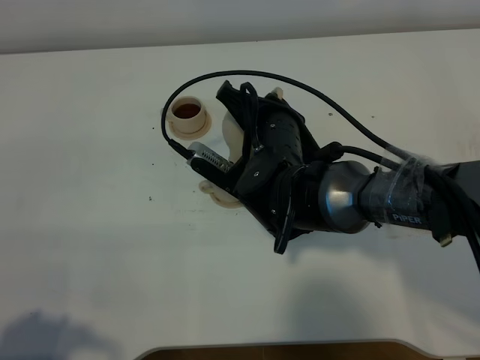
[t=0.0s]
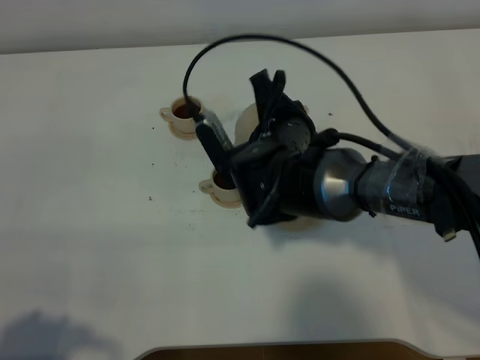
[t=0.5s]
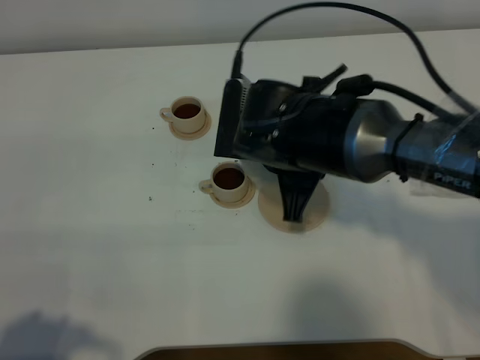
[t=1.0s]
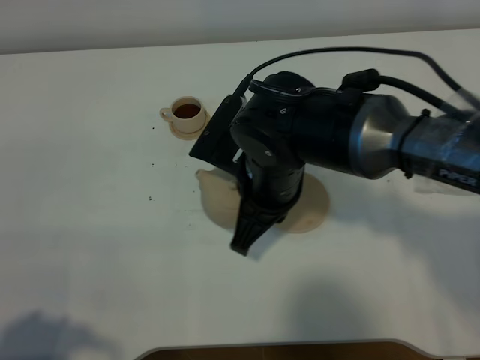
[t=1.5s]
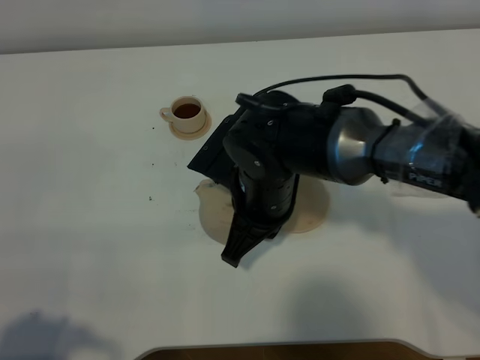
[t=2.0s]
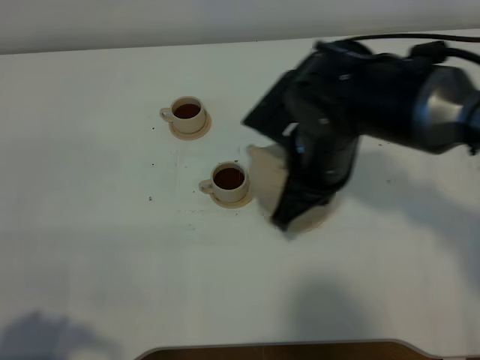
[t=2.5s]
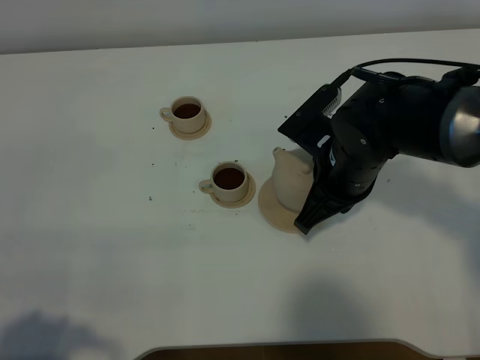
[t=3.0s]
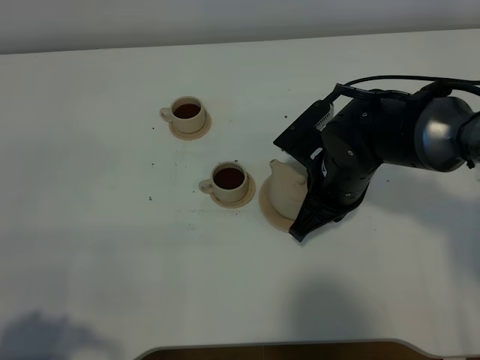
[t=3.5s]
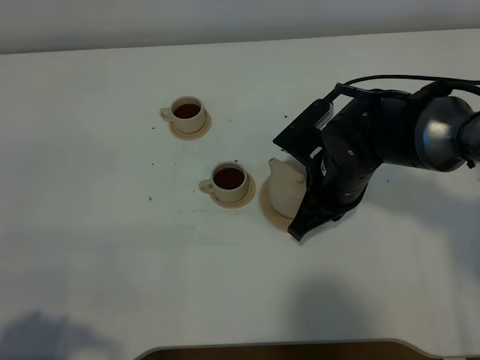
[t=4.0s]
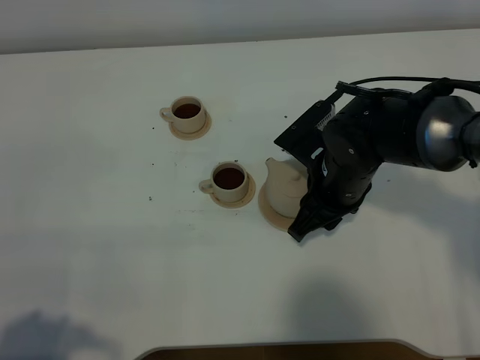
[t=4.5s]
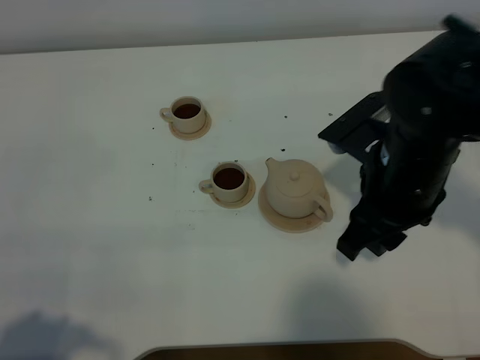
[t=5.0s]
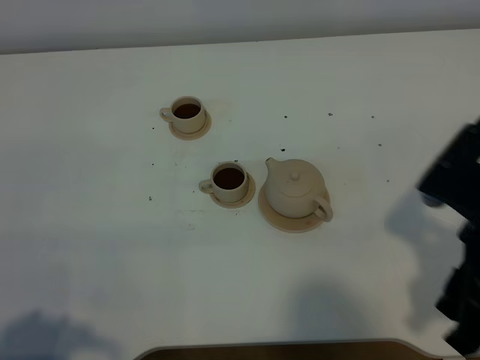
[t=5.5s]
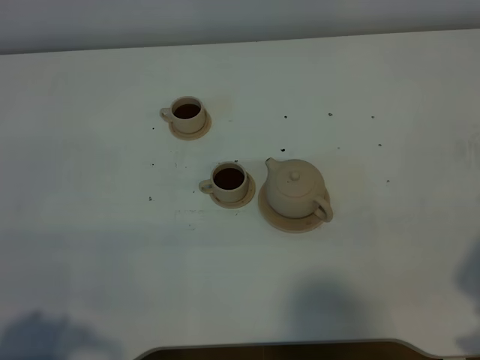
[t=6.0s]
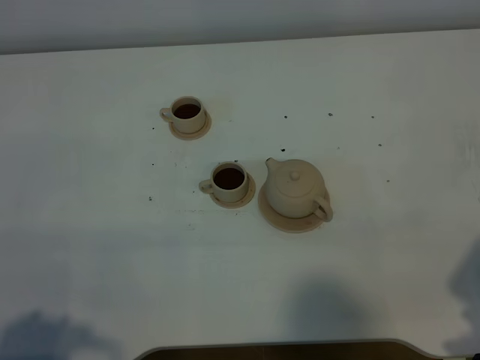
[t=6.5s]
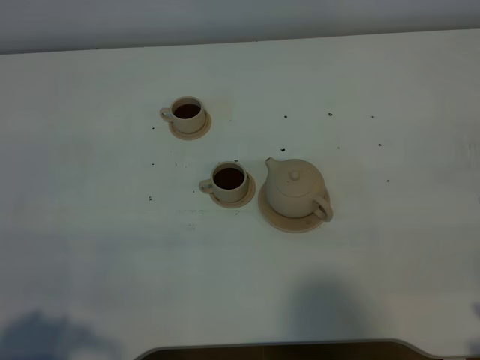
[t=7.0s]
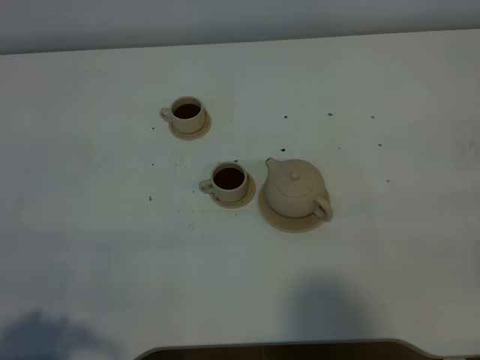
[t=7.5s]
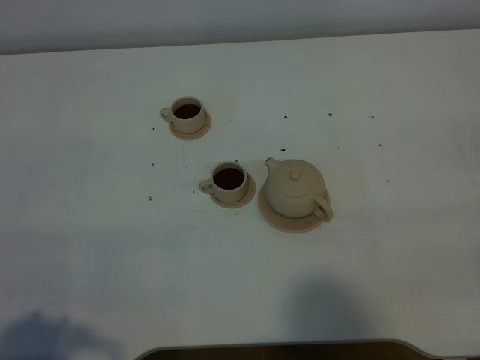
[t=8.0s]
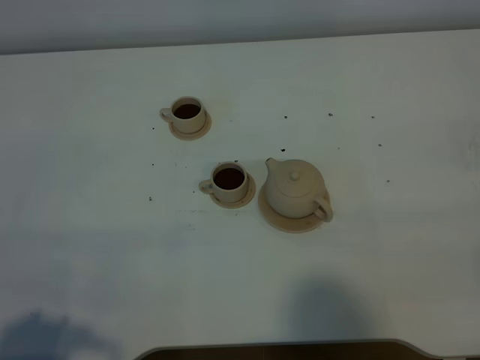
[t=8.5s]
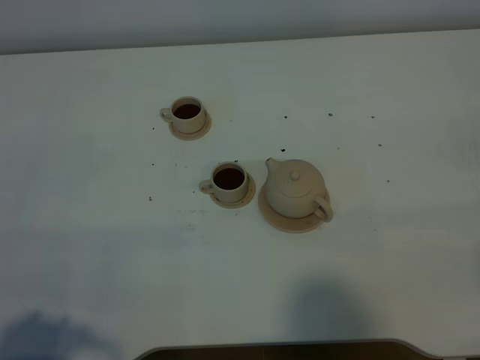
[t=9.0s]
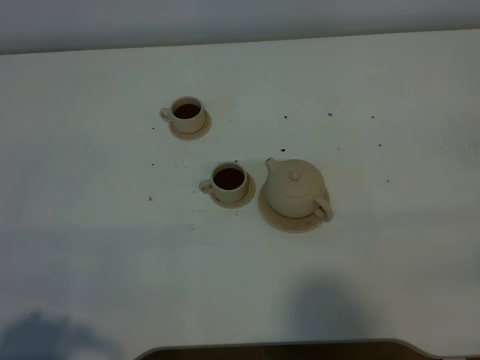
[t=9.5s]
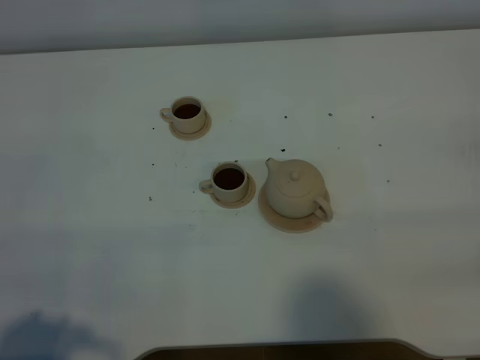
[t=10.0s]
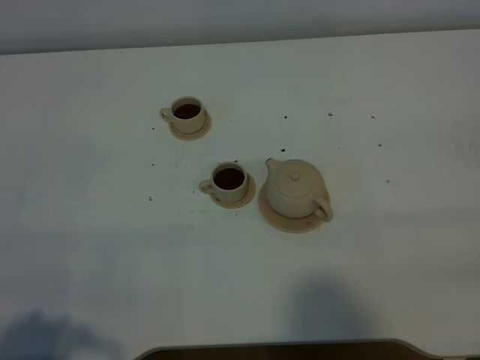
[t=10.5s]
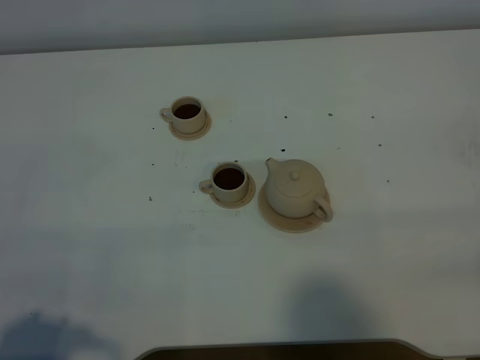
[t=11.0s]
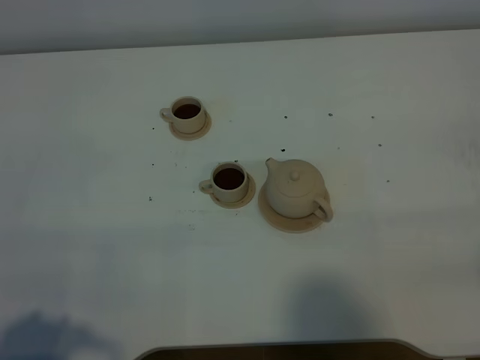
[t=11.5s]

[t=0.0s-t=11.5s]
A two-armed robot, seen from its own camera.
Task of the whole recording: grasp the brown teapot and pour the tea into the two brown teacups one by one, put the brown teapot back in its original place.
t=2.0s to t=4.0s: The right gripper travels to the right by roughly 10 cm.
t=4.0s to t=6.0s: The right gripper is displaced backward, to the right and upward by about 30 cm, and opens up.
